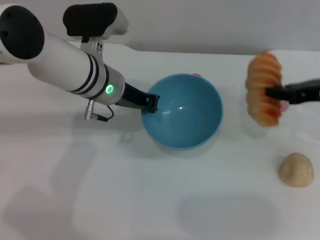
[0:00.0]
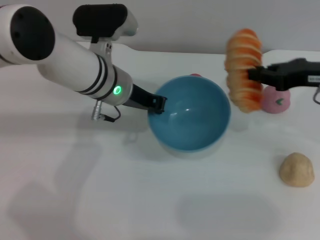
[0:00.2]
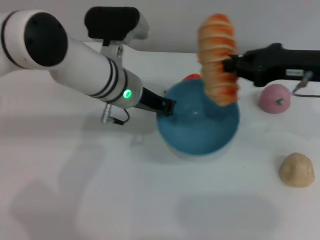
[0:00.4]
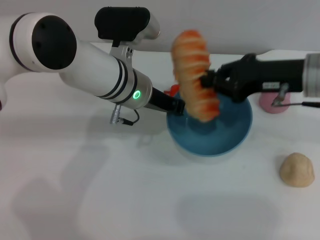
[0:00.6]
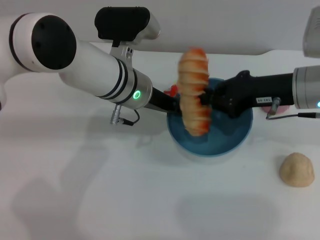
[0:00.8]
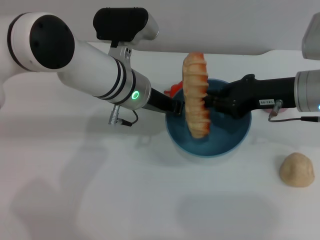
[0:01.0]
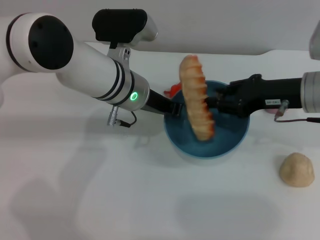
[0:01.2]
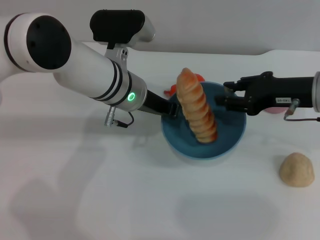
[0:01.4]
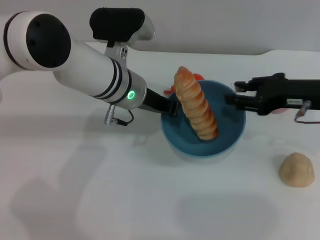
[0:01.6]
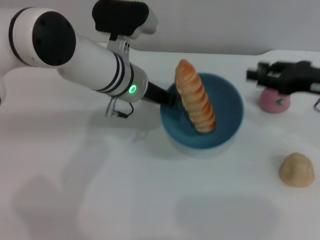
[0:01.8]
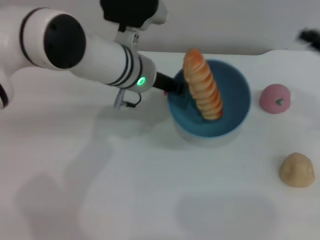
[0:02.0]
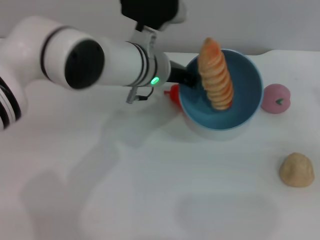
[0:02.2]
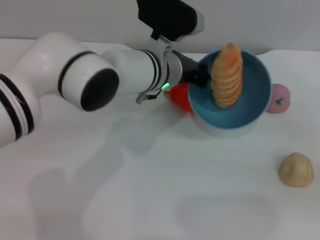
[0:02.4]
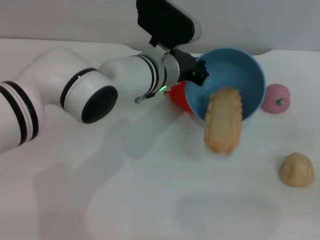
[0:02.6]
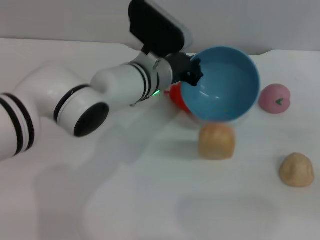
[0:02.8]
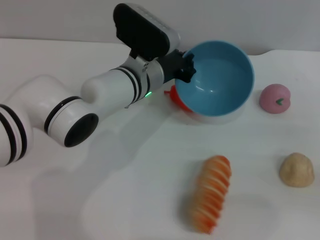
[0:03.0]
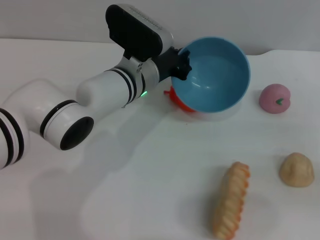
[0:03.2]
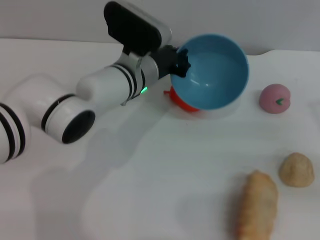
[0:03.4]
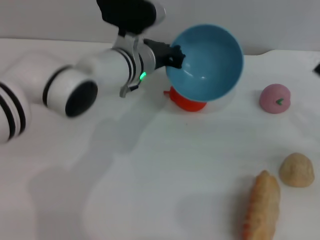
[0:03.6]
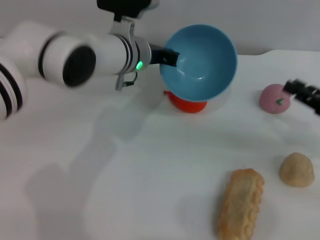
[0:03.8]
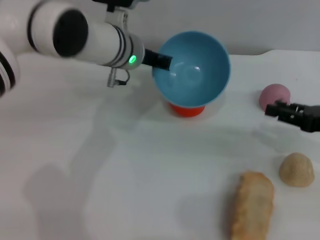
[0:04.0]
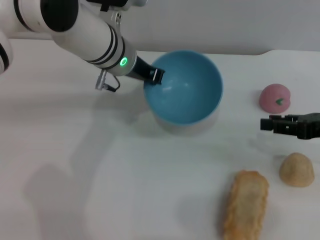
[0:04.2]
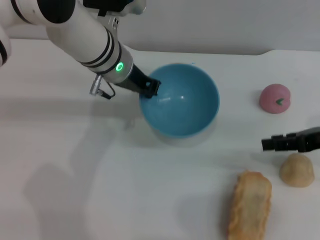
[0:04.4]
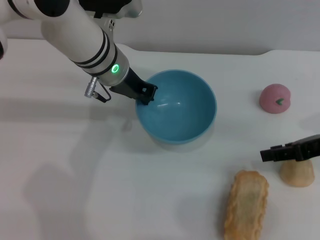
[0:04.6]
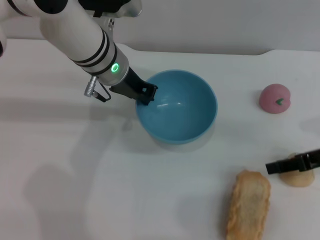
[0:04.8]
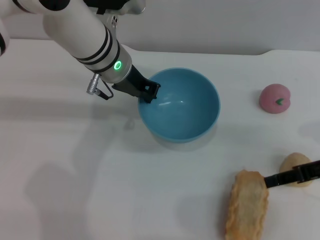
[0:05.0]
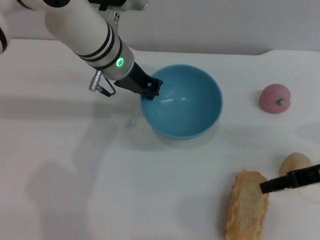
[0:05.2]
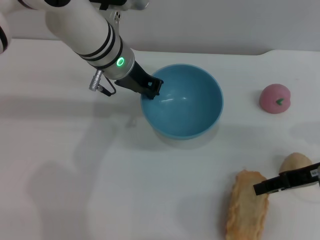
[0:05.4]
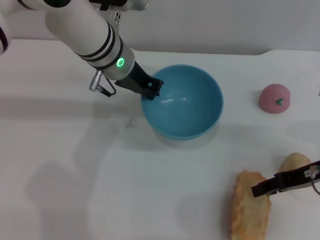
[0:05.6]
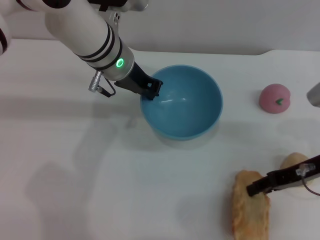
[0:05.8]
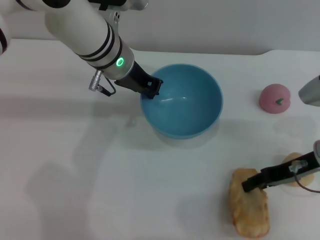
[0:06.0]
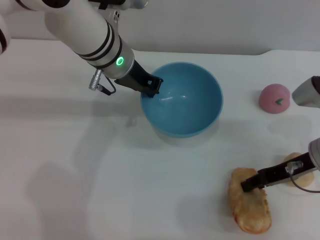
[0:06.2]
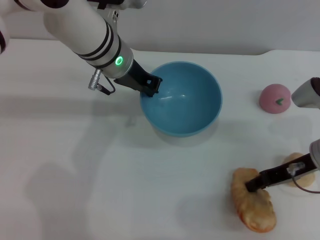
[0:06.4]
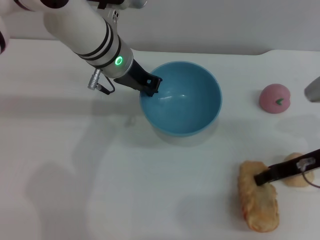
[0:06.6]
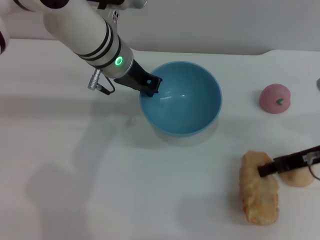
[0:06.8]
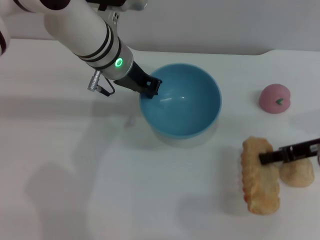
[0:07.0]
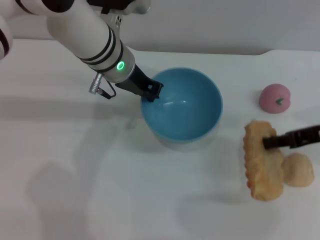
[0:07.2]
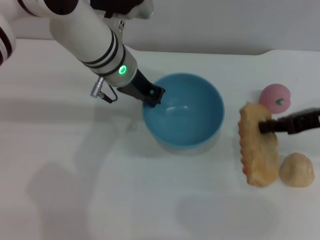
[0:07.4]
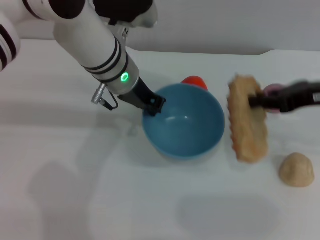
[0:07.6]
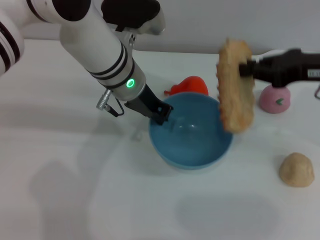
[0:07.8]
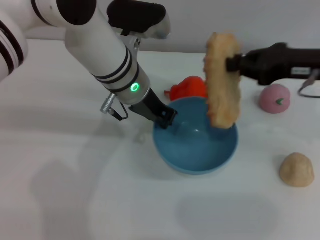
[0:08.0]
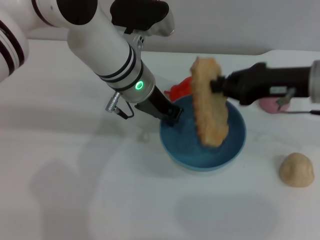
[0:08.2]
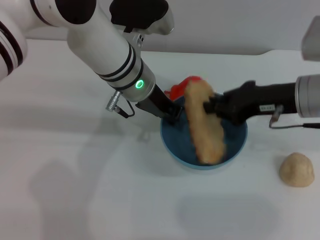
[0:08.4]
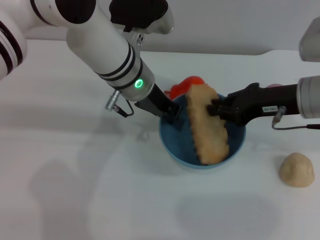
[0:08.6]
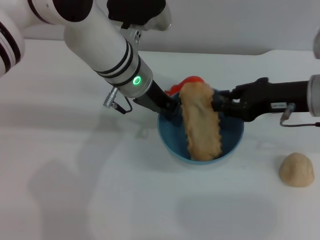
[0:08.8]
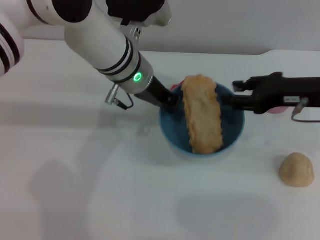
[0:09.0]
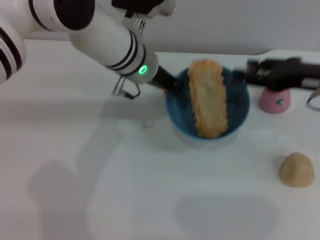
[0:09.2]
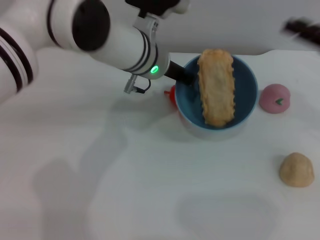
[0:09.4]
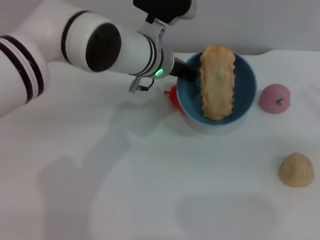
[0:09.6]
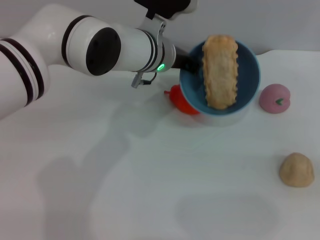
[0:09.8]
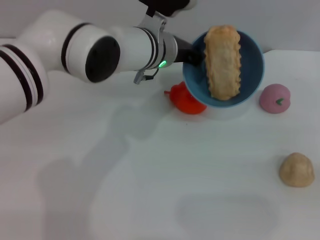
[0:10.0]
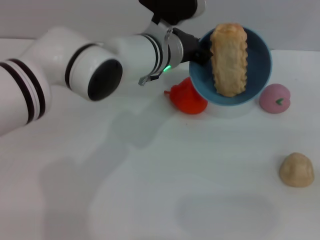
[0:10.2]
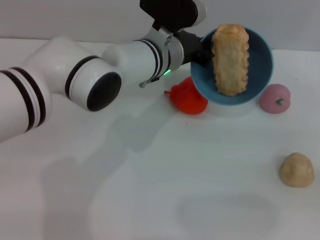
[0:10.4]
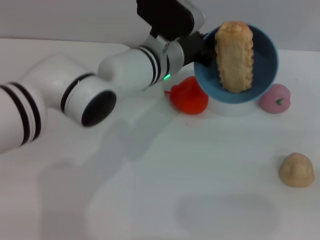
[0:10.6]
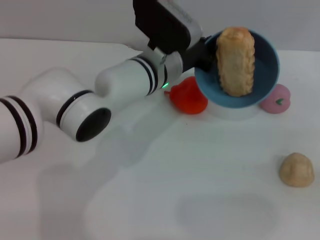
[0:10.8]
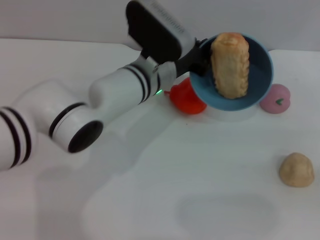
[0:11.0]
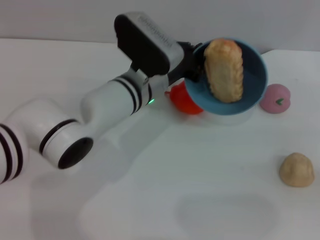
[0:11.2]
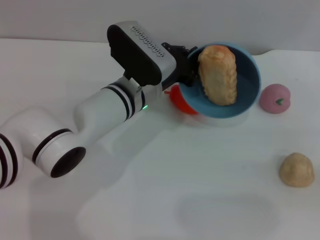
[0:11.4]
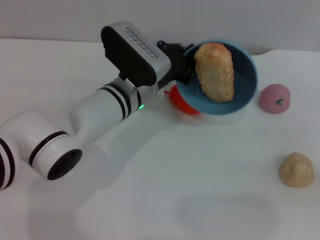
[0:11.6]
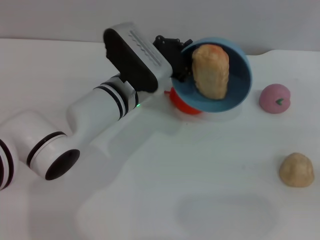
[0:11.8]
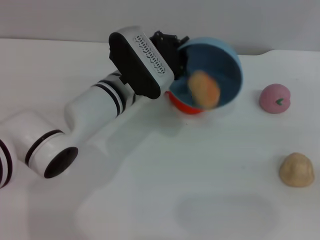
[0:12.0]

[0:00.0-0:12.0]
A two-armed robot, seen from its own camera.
Task of the whole recording: put the bread into the blue bowl and pour it out repeatedly.
Step, 0:00.0 to 0:01.6: Place the bread into the bowl.
Step, 0:01.8 to 0:03.2: Pour the bread out of the bowl.
Step, 0:03.4 to 0:07.0: Pick up the bread with the right gripper.
Step, 0:07.2 to 0:09.2: Place the bread into the bowl.
0:00.0 to 0:01.6: The right gripper opens up.
0:01.6 to 0:03.0: The right gripper moves to the right, backward and downward, some 15 cm.
0:03.0 to 0:04.4: The left gripper shifts roughly 5 cm upward. Meanwhile the right gripper shifts about 10 cm to the left, forward and upward.
0:04.4 to 0:06.0: The right gripper is displaced downward by about 5 cm.
0:06.0 to 0:07.6: The right gripper travels upward by roughly 10 cm, and closes.
0:07.6 to 0:09.0: The right gripper opens.
0:09.0 to 0:10.4: The right gripper heads to the right and backward, covering about 20 cm, and opens its fingers; the left gripper changes place by some 5 cm.
0:10.4 to 0:12.0: The left gripper travels to the left by some 5 cm.

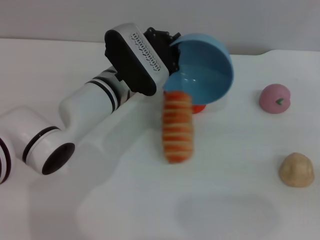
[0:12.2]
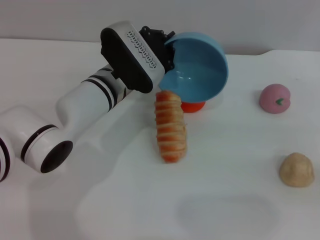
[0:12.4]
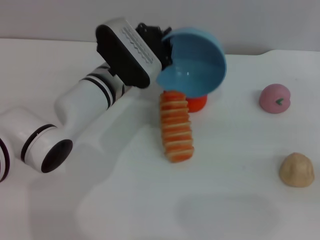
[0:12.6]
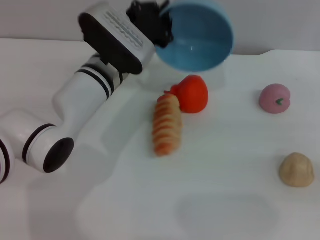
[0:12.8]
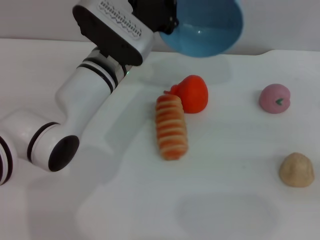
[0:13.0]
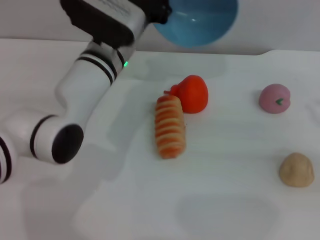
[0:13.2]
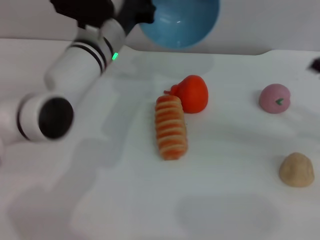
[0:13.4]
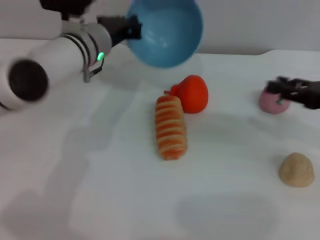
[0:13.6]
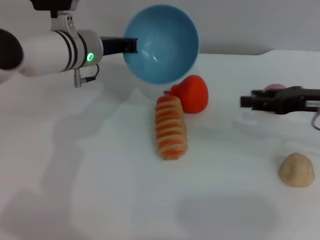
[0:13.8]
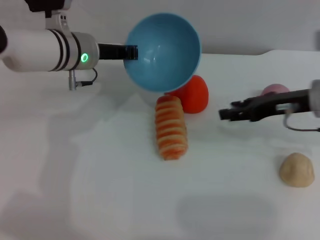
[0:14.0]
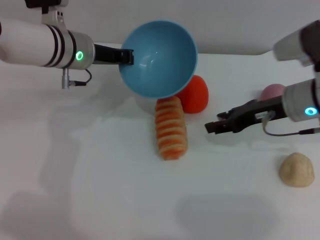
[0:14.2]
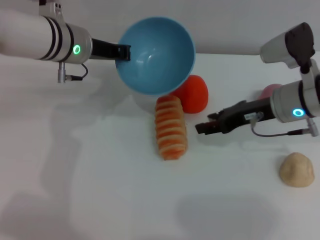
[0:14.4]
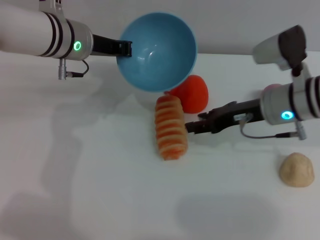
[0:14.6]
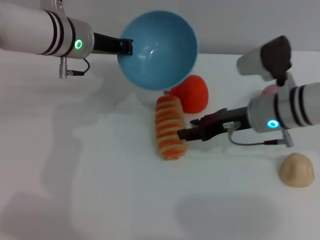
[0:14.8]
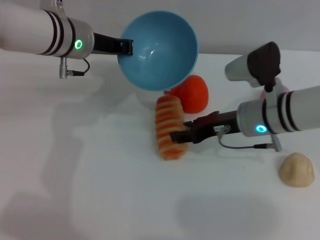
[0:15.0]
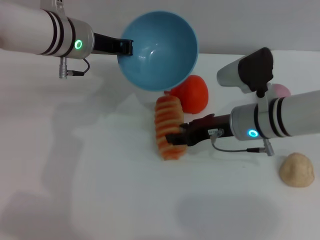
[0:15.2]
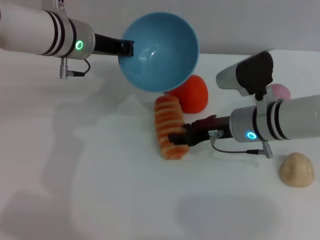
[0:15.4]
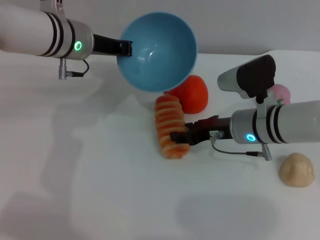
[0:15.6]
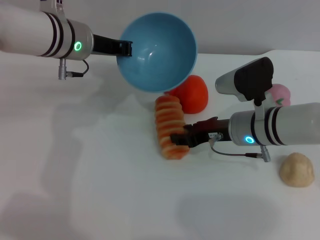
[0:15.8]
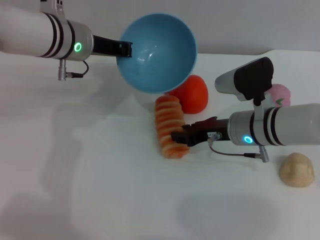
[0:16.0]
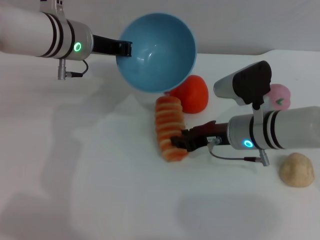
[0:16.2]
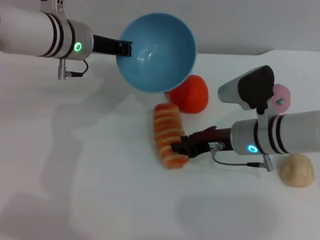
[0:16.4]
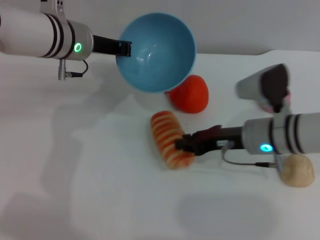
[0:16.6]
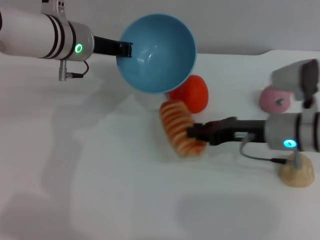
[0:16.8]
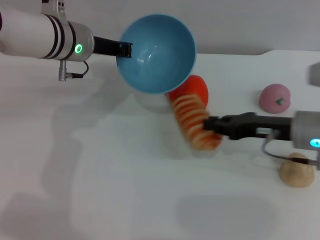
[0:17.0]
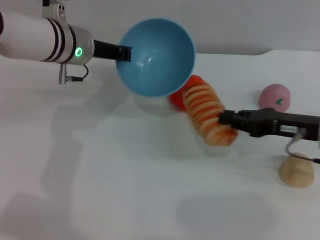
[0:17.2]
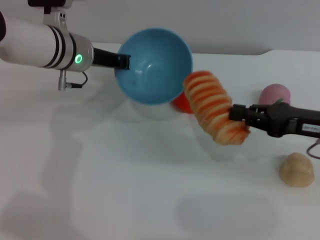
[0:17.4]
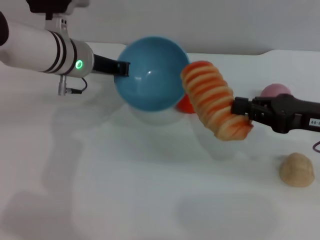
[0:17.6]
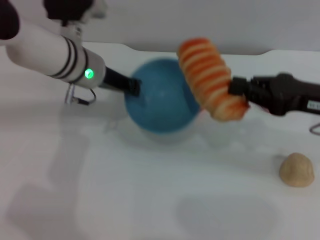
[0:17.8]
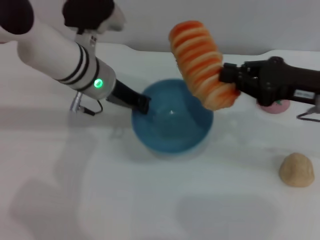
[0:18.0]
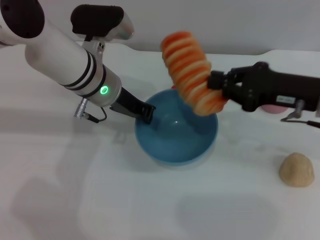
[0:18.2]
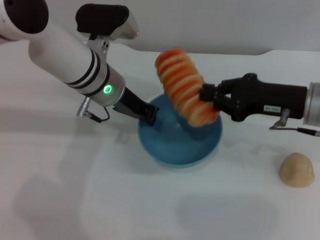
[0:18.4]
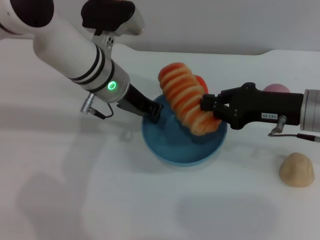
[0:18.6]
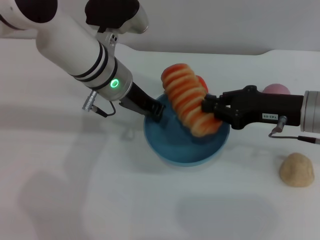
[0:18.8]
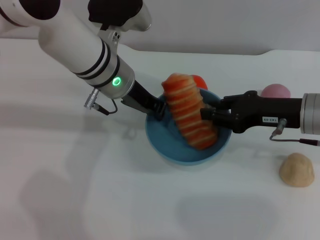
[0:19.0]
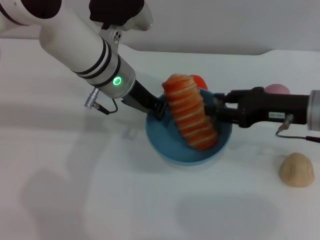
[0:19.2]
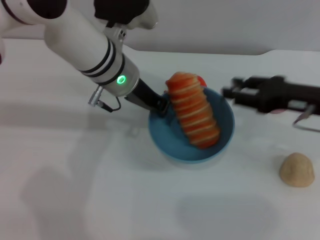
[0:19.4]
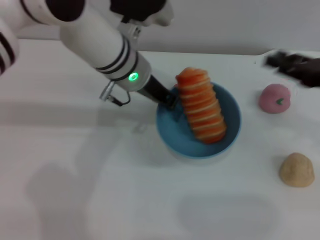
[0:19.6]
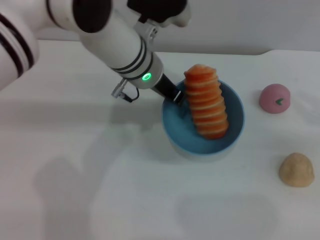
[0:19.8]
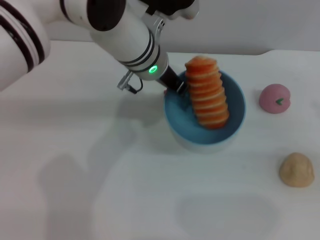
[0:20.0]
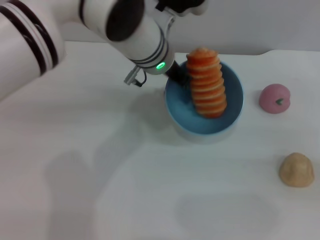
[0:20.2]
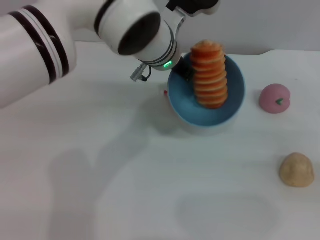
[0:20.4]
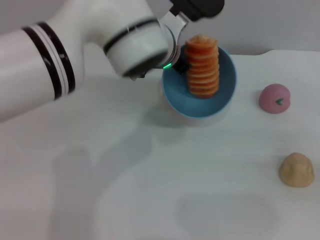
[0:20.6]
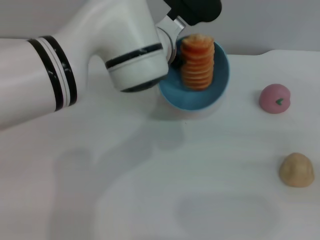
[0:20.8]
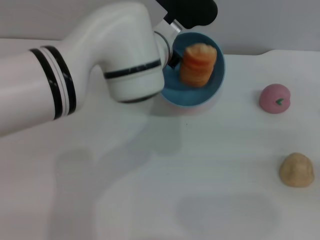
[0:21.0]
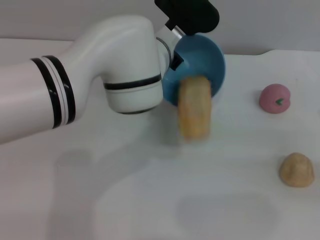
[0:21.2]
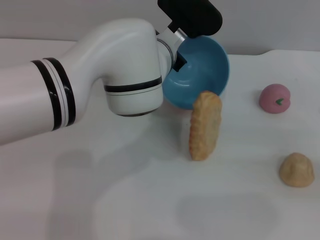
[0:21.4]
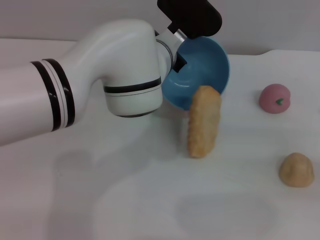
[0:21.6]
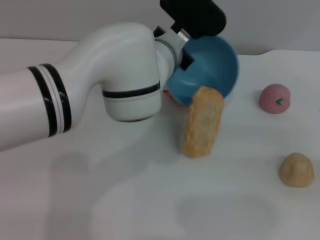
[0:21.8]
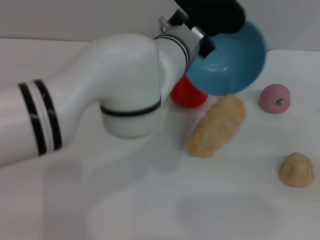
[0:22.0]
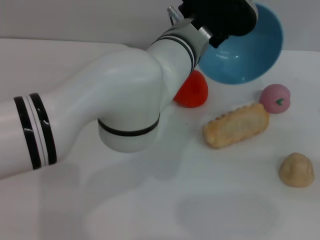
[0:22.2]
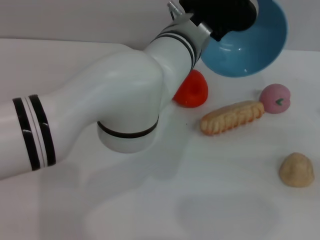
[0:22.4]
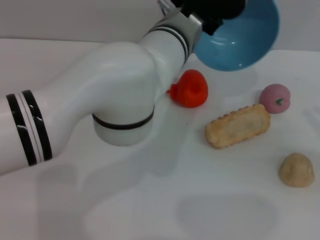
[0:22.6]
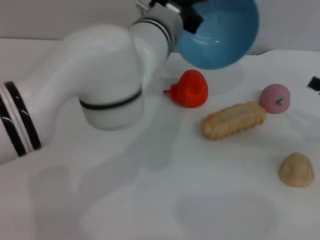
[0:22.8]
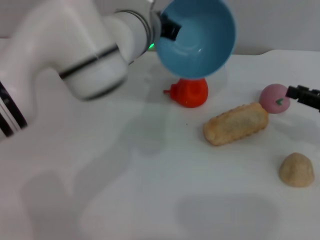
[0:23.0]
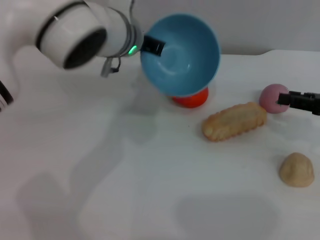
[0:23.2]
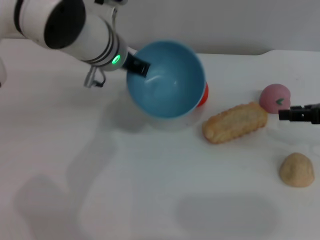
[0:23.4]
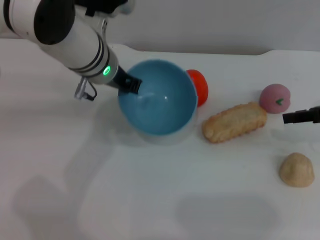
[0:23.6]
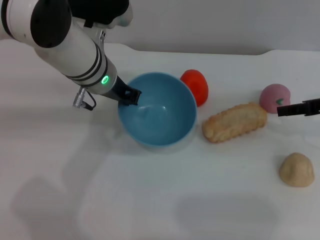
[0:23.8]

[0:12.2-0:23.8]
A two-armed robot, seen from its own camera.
Task of the whole recording: put the bread into the blue bowl and pour it out repeatedly.
Step, 0:13.2 to 0:17.0: Pick up the bread with the right gripper.
Step, 0:17.2 to 0:19.2: Place the bread into the bowl.
Step, 0:19.4 to 0:22.4: Pour the bread out of the bowl.
0:12.2 to 0:13.6: The left gripper ends up roughly 10 cm from where it was, while the right gripper goes some 10 cm to the left and forward.
0:13.6 to 0:15.0: The right gripper shifts about 15 cm to the left.
0:15.0 to 0:16.6: The right gripper closes.
0:16.6 to 0:18.0: The right gripper moves upward and to the right, roughly 15 cm, and closes up.
0:18.0 to 0:19.4: The right gripper opens its fingers.
0:19.4 to 0:21.0: The right gripper goes roughly 15 cm to the right and backward; the left gripper is displaced to the right by about 5 cm.
0:21.0 to 0:22.4: The left gripper ends up roughly 5 cm from where it was.
0:22.4 to 0:23.8: The right gripper travels forward and to the left by about 15 cm; the left gripper travels to the left by roughly 10 cm.
